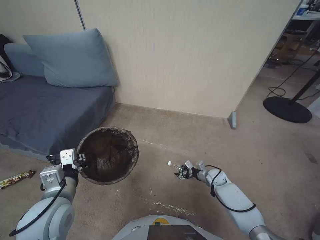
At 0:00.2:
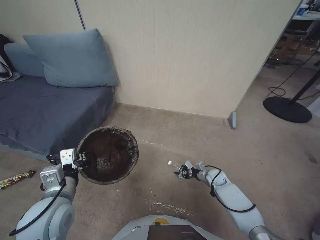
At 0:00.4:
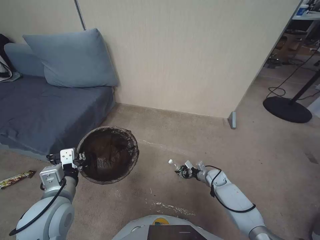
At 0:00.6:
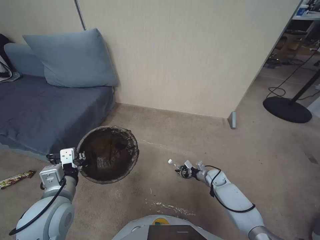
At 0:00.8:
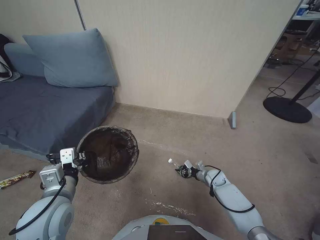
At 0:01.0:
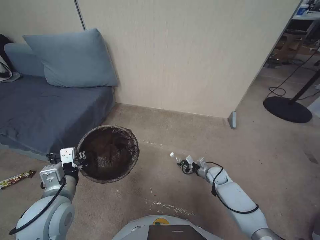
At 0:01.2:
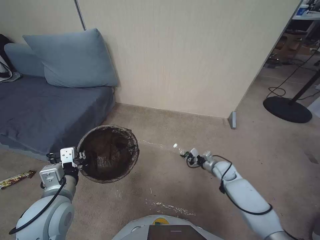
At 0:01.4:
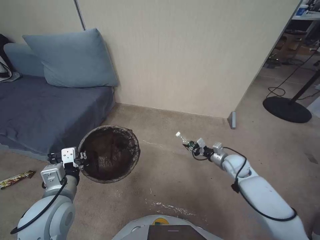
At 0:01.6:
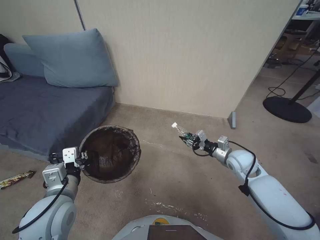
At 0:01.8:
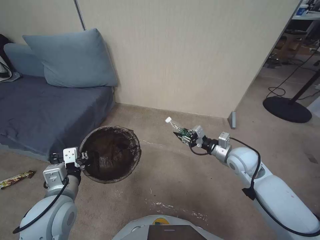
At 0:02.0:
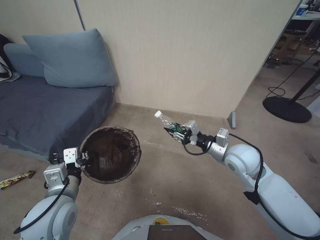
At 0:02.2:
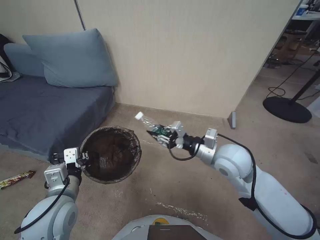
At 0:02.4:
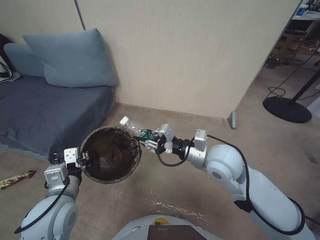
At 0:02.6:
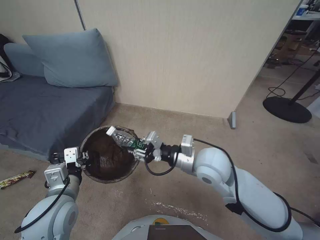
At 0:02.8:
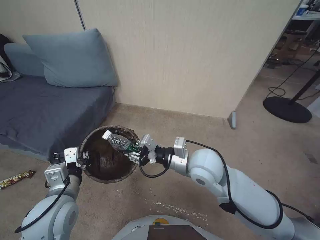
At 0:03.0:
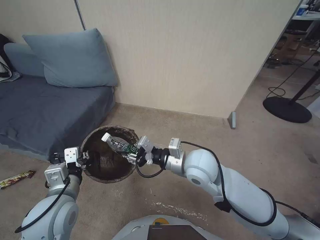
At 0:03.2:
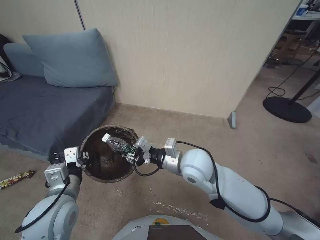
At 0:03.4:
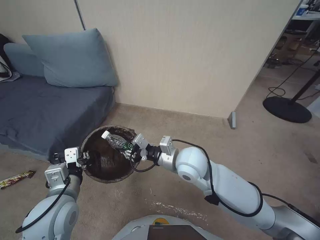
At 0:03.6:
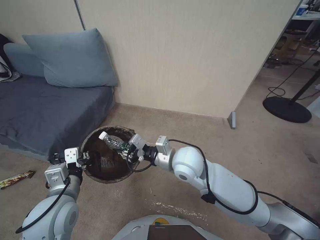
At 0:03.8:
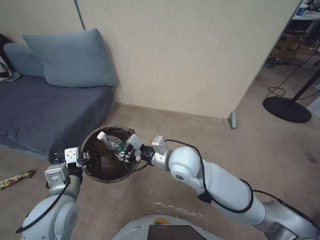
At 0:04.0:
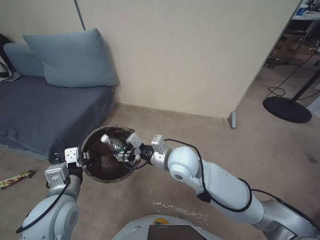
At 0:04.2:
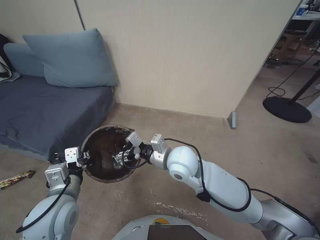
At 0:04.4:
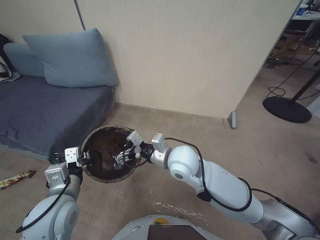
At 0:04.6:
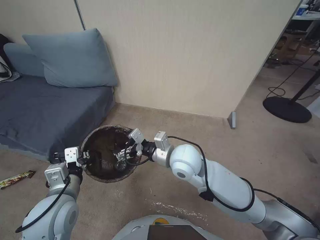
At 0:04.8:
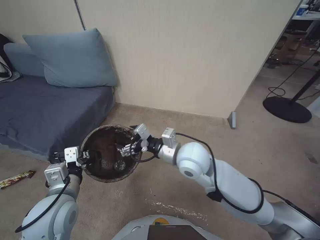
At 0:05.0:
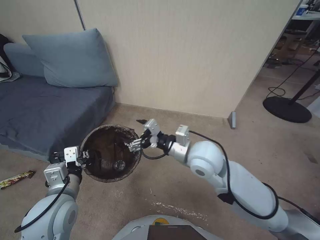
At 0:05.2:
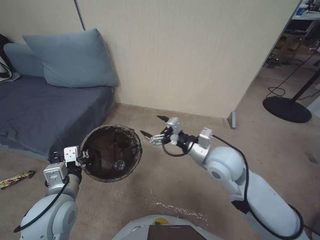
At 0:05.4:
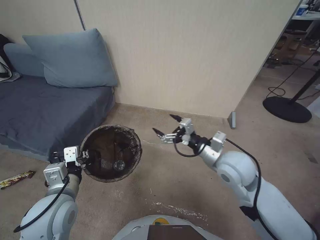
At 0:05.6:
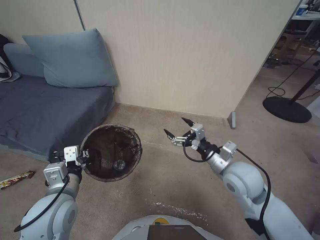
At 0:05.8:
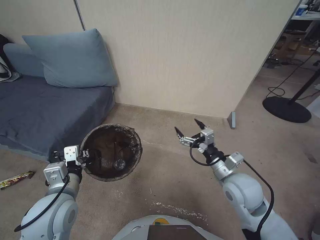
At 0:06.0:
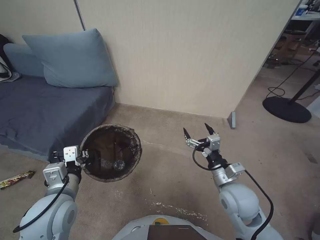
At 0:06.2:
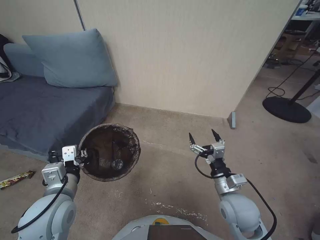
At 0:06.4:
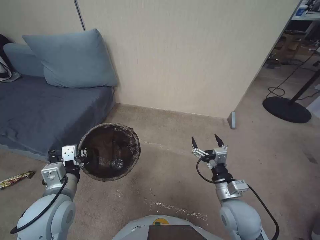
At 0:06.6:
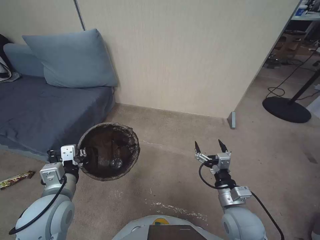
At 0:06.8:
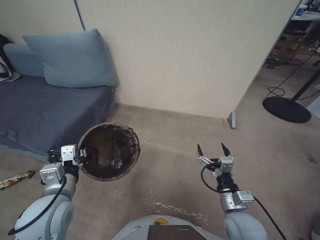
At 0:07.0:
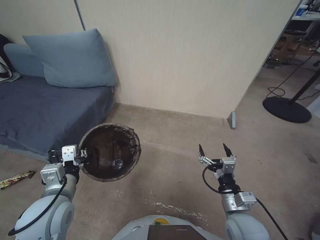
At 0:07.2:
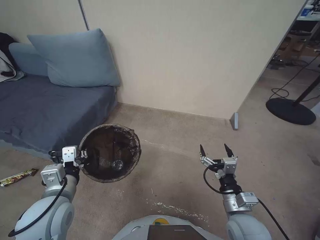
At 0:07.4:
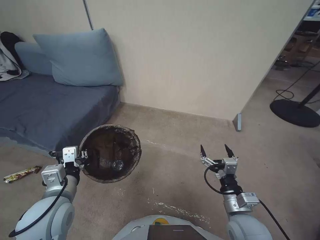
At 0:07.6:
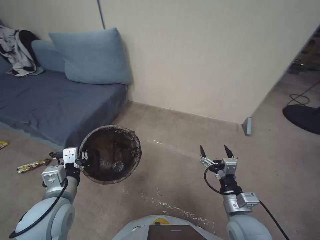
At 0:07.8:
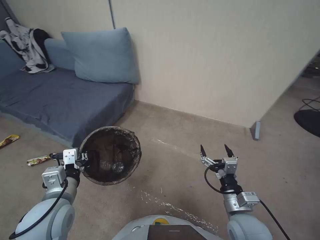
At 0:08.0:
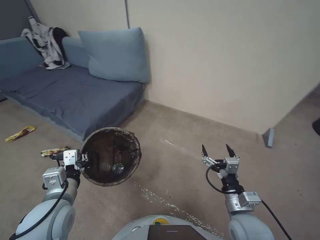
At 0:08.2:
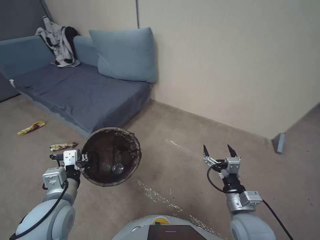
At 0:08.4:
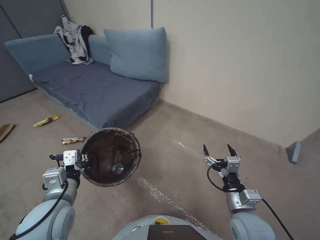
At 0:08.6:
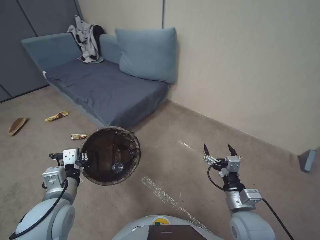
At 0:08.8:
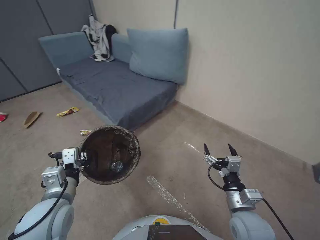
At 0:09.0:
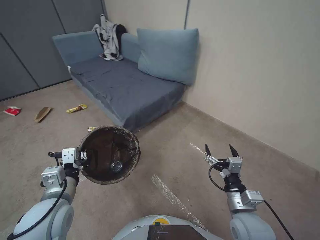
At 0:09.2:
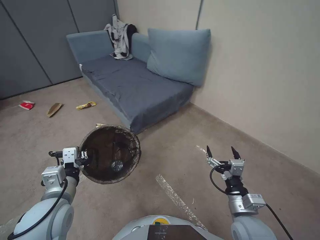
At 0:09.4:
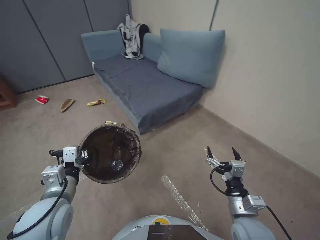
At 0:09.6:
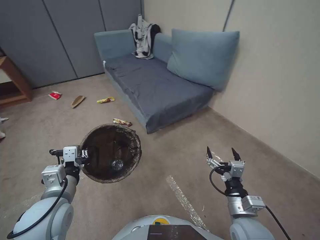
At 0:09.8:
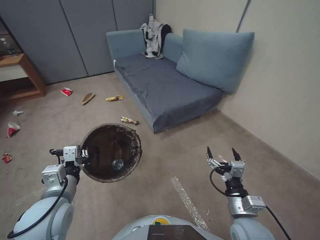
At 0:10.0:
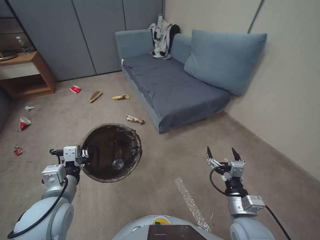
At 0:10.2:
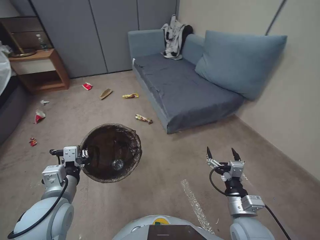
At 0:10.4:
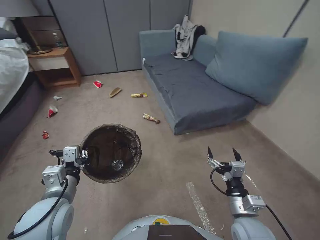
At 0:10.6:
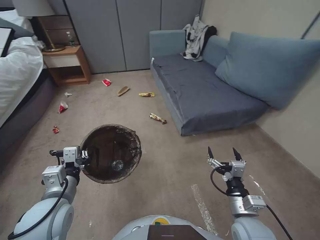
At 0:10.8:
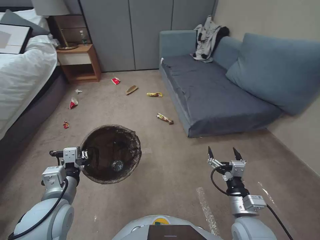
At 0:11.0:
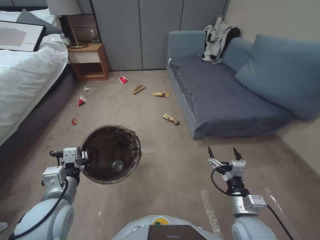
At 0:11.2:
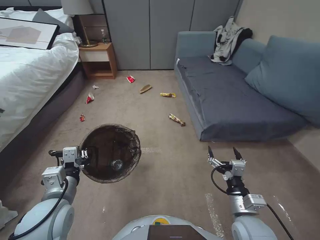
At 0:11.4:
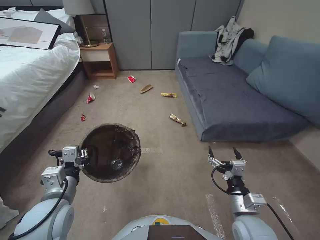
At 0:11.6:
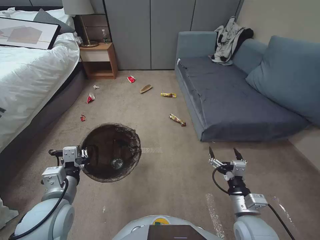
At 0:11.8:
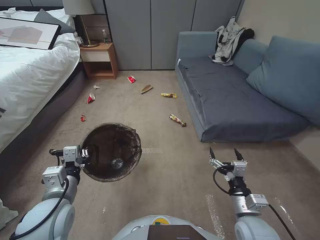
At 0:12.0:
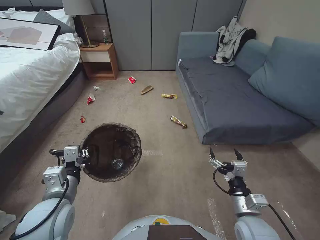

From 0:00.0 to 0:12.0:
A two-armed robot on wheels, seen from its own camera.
Task of the whole recording: Pick up the trash bin, then pick up the garbage from the floor and place it into the trash bin.
From 0:00.0 to 0:01.6: The right gripper travels upward by about 20 cm, and closes.
From 0:01.6 to 0:03.0: The right gripper is displaced to the left and upward by approximately 25 cm.
From 0:03.0 to 0:04.4: The right gripper moves to the left, approximately 5 cm, and opens up.
From 0:04.4 to 0:06.0: The right gripper shifts roughly 20 cm to the right and backward.
From 0:06.0 to 0:07.6: The right gripper shifts some 10 cm backward.

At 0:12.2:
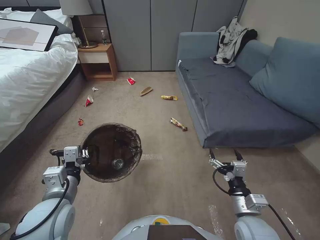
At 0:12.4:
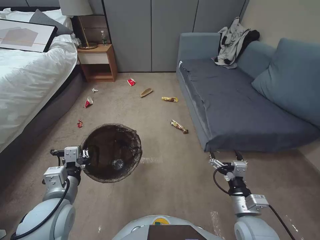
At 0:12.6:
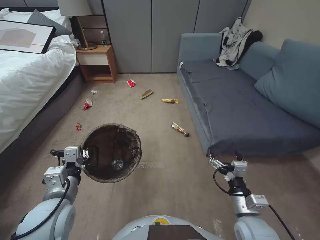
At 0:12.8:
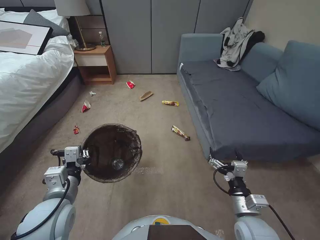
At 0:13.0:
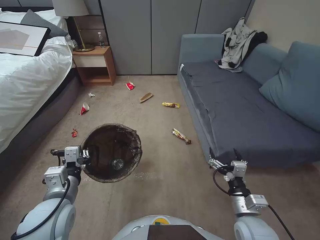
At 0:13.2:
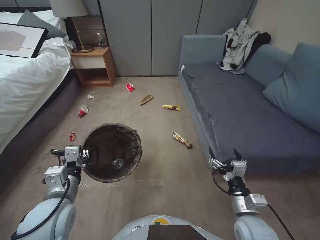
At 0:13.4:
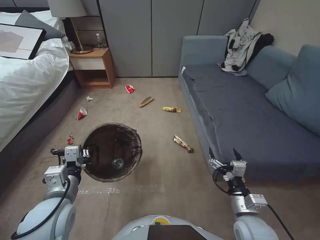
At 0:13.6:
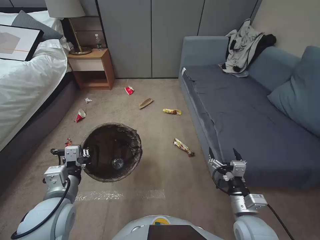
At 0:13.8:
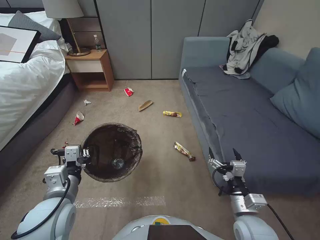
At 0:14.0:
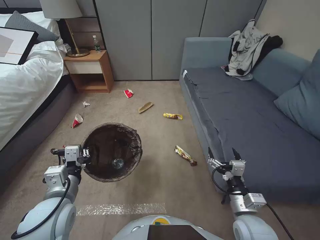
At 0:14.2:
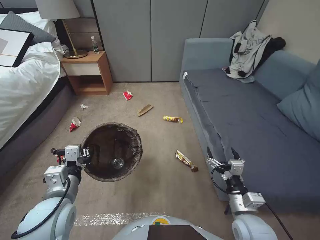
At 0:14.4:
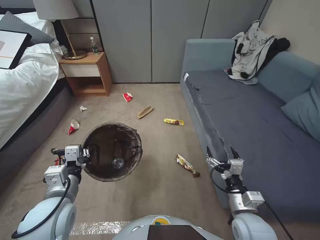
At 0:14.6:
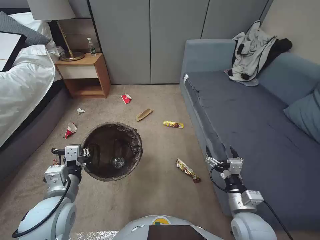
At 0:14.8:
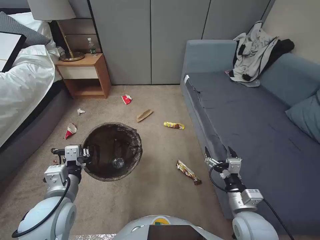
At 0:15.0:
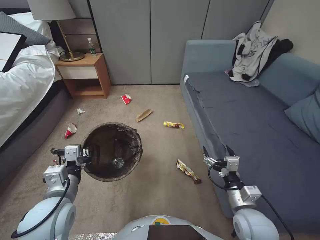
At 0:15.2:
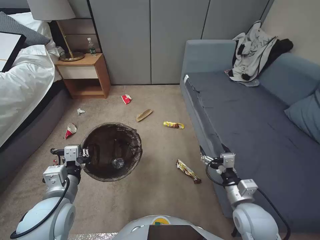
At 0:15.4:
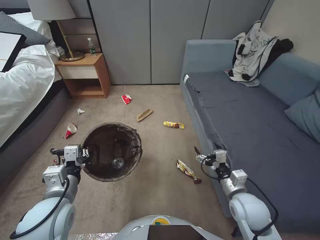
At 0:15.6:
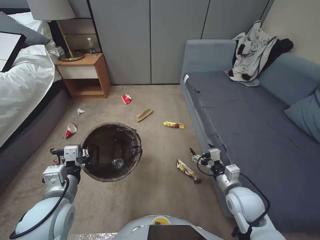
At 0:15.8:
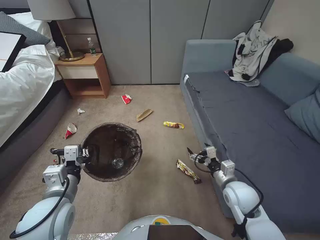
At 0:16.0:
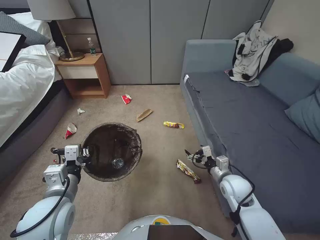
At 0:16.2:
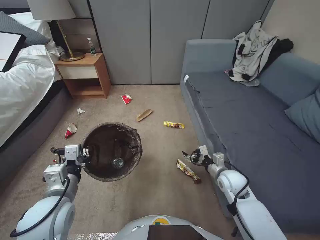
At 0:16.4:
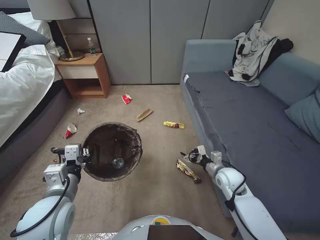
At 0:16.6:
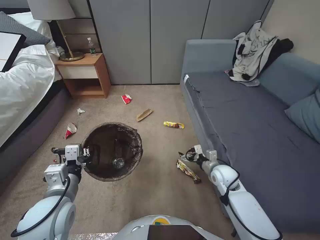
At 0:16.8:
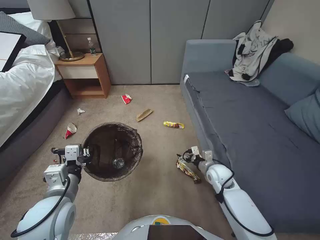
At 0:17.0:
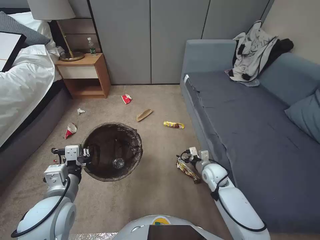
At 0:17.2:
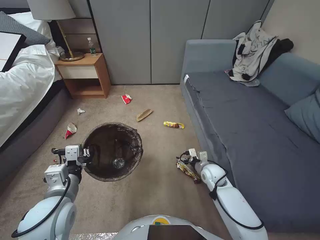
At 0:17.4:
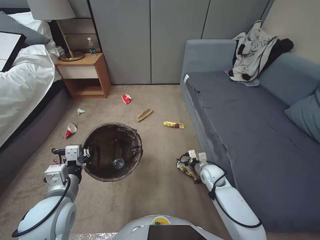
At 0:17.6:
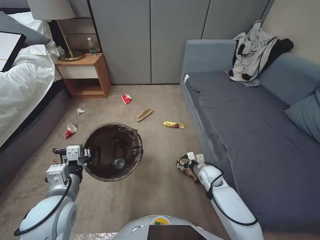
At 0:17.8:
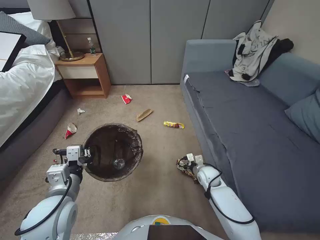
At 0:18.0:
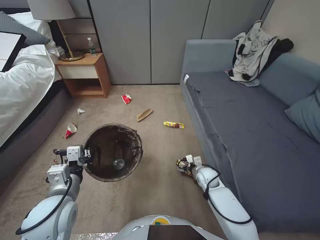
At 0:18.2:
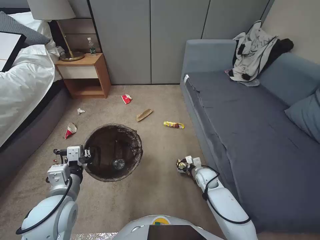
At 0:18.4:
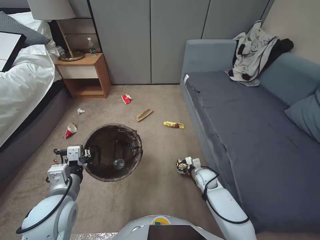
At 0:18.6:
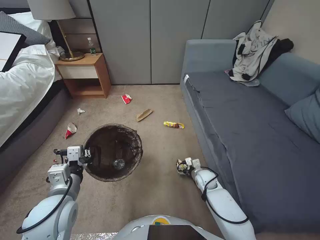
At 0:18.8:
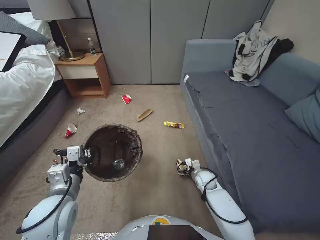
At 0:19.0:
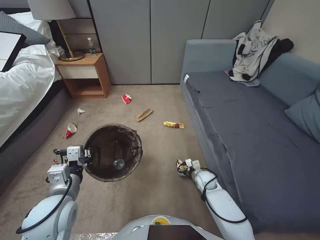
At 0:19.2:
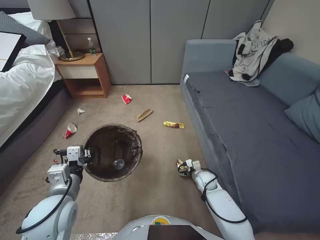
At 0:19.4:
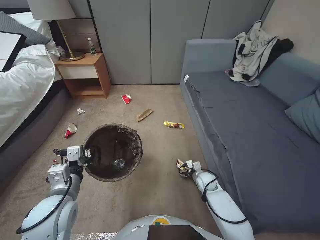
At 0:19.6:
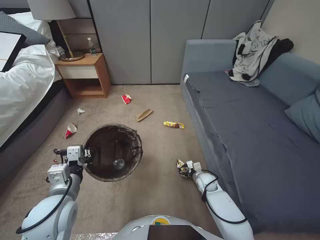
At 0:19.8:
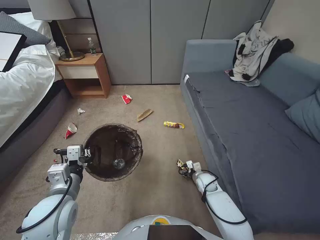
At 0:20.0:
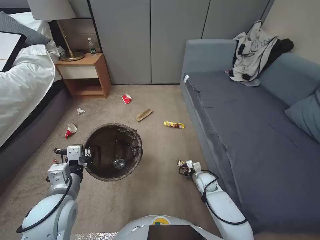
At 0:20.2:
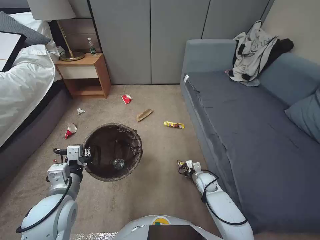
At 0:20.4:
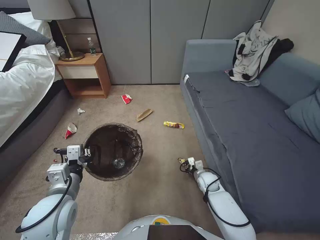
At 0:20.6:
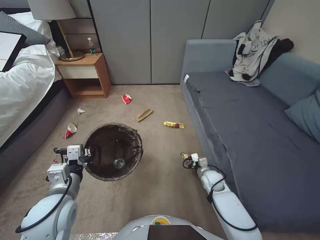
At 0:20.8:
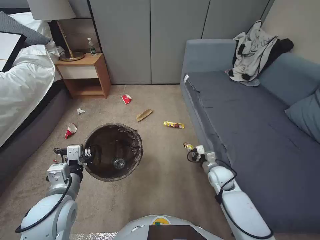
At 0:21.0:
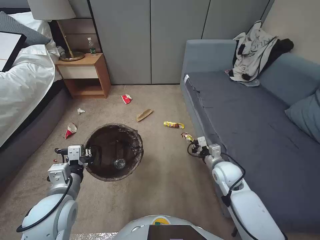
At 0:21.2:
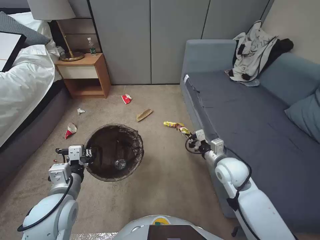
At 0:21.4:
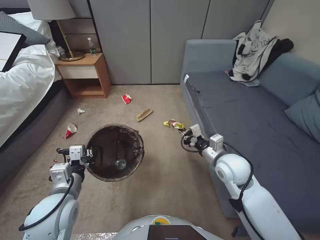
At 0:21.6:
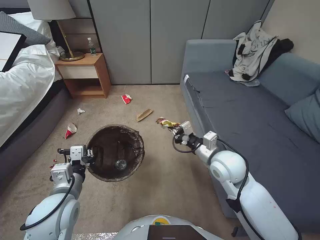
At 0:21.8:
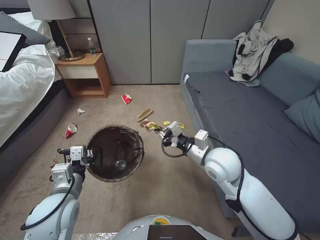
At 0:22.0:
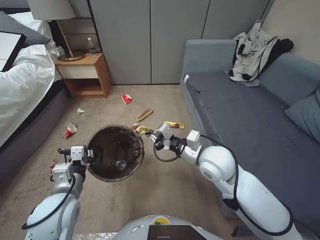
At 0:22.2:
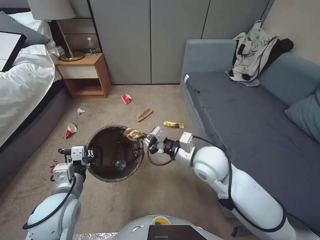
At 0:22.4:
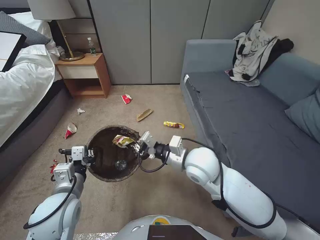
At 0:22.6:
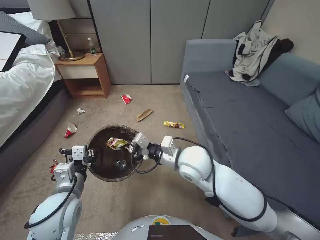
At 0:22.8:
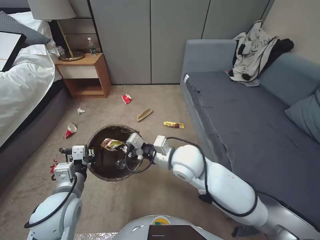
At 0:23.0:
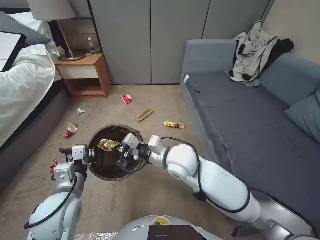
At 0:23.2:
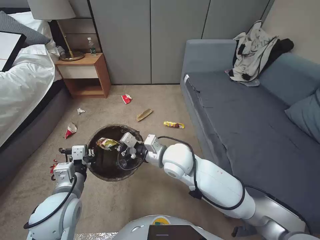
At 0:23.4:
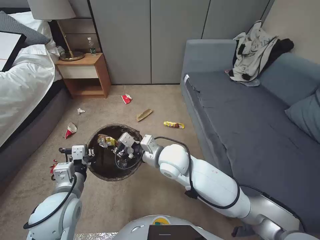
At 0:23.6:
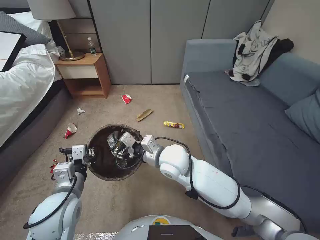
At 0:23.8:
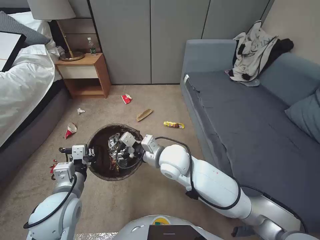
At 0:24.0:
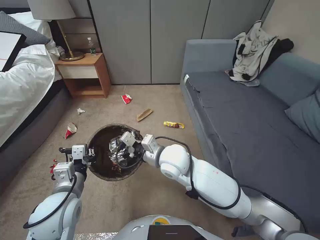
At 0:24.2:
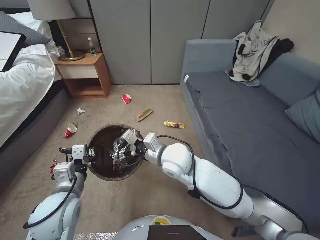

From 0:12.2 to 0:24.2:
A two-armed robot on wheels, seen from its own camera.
Task of the whole recording: Pick up the trash bin, then pick up the garbage from the floor and place it into the trash bin.
From 0:15.2 to 0:16.6: The right gripper heads forward, covering about 15 cm.
From 0:16.6 to 0:18.2: The right gripper is displaced downward by approximately 10 cm.
From 0:18.2 to 0:19.8: The right gripper closes.
From 0:19.8 to 0:21.2: The right gripper goes about 20 cm upward, and closes.
From 0:21.2 to 0:22.6: The right gripper heads to the left and upward, covering some 20 cm.
From 0:22.6 to 0:24.2: The right gripper goes about 5 cm to the left, and opens its fingers.
